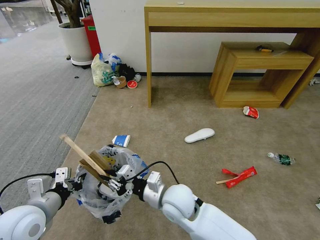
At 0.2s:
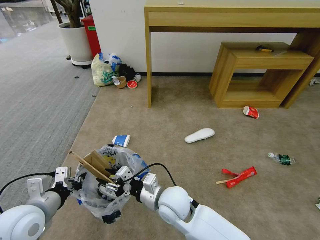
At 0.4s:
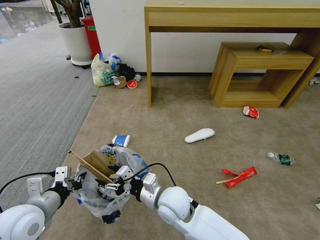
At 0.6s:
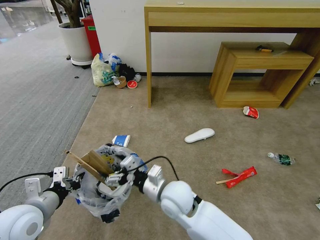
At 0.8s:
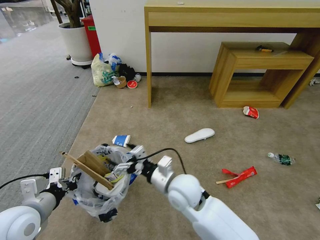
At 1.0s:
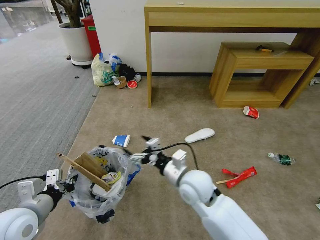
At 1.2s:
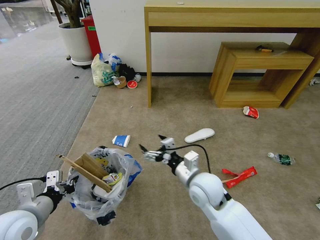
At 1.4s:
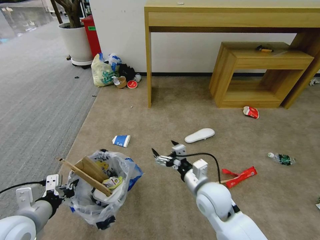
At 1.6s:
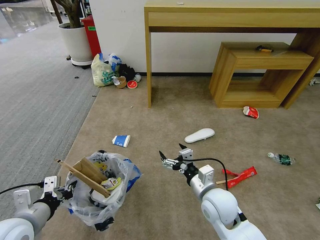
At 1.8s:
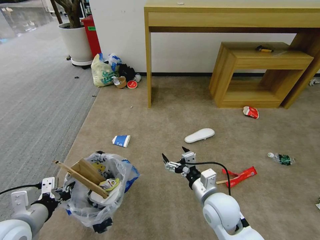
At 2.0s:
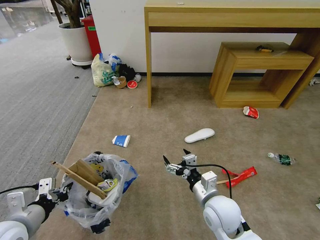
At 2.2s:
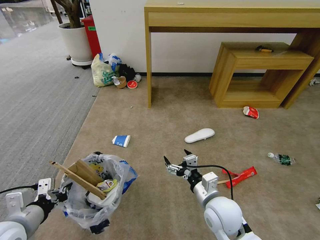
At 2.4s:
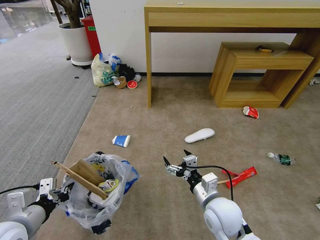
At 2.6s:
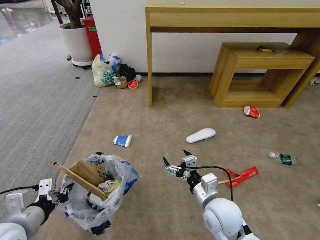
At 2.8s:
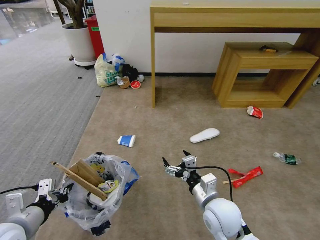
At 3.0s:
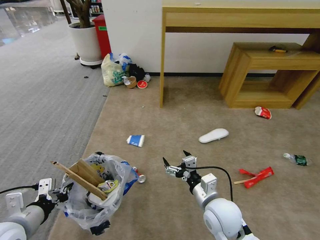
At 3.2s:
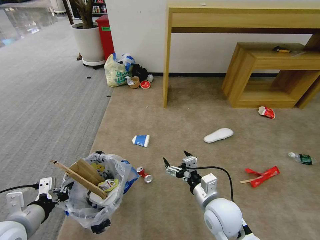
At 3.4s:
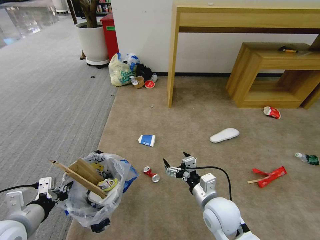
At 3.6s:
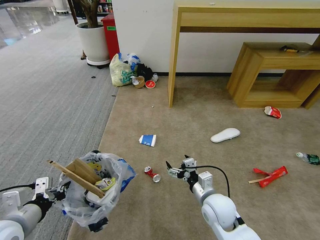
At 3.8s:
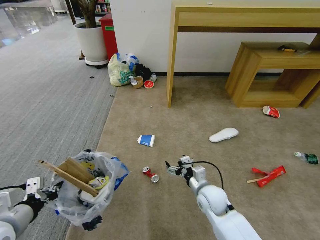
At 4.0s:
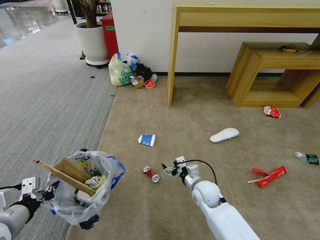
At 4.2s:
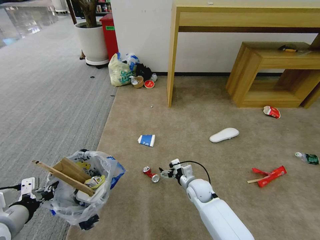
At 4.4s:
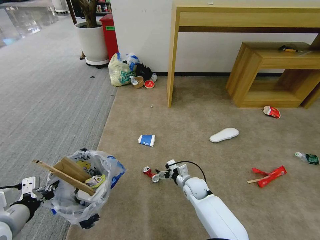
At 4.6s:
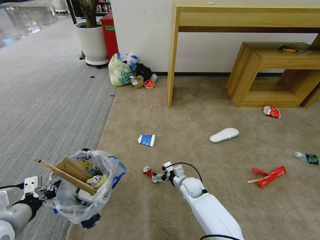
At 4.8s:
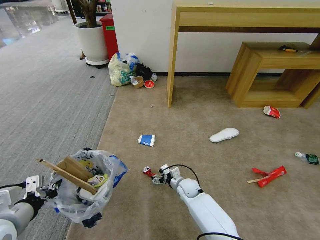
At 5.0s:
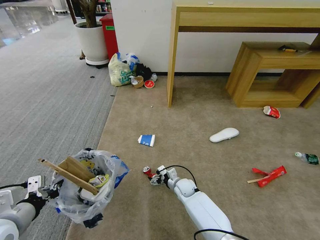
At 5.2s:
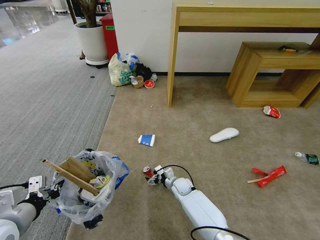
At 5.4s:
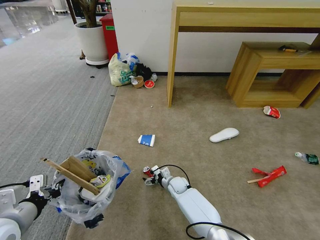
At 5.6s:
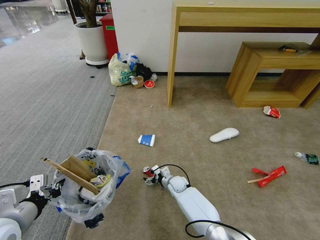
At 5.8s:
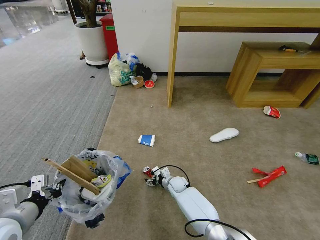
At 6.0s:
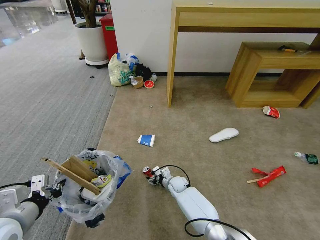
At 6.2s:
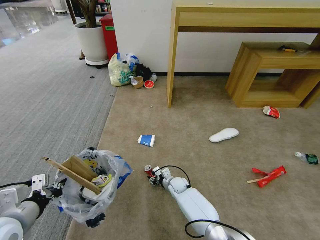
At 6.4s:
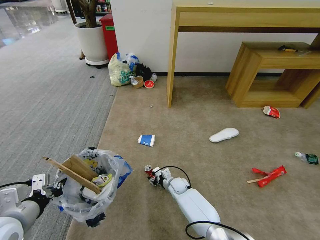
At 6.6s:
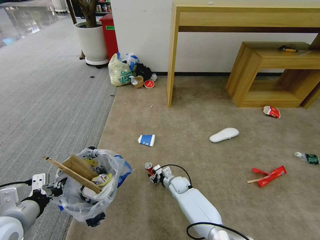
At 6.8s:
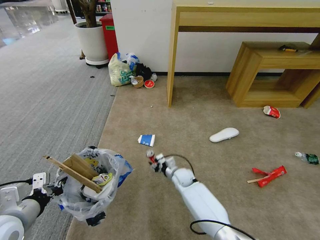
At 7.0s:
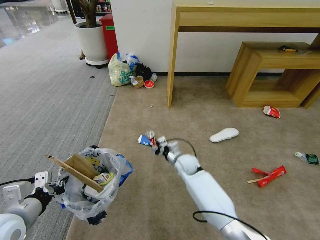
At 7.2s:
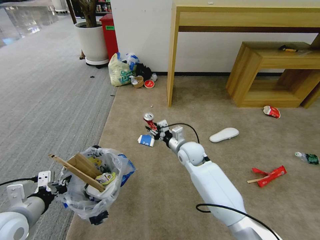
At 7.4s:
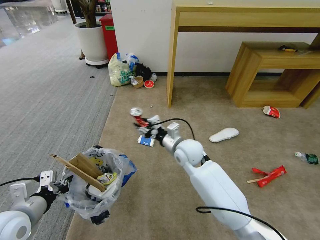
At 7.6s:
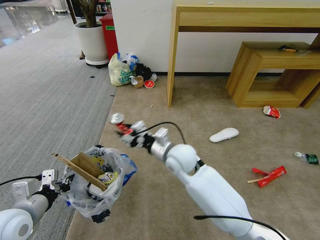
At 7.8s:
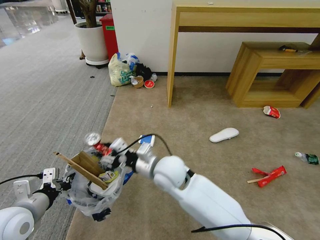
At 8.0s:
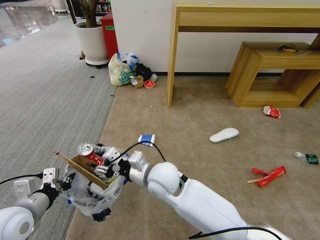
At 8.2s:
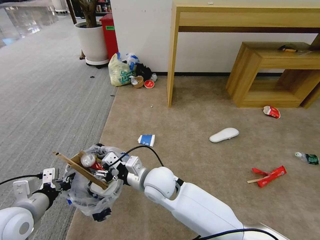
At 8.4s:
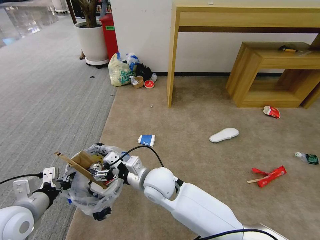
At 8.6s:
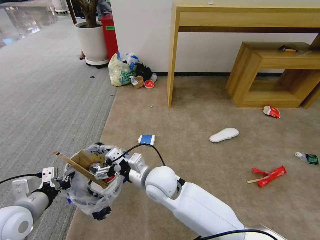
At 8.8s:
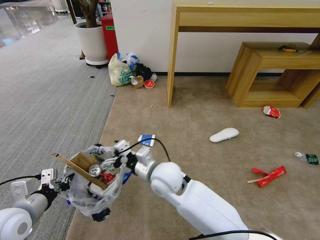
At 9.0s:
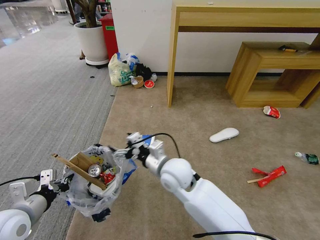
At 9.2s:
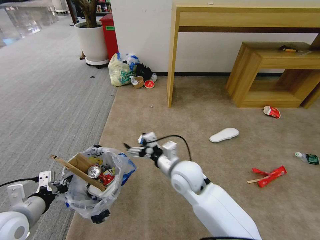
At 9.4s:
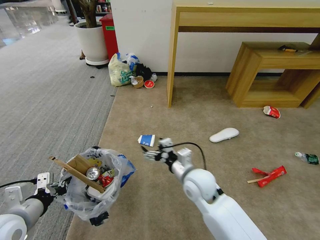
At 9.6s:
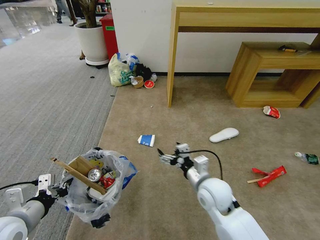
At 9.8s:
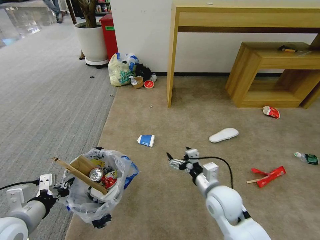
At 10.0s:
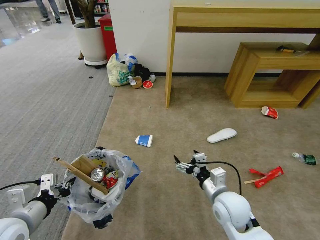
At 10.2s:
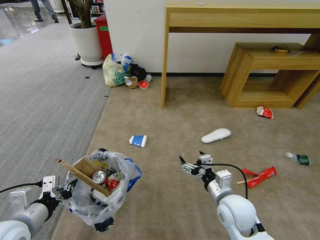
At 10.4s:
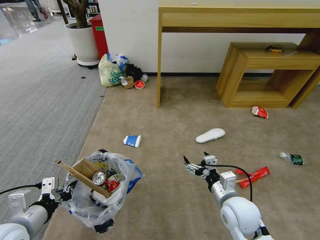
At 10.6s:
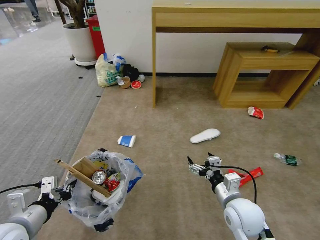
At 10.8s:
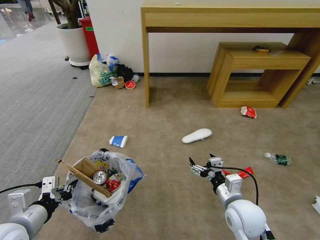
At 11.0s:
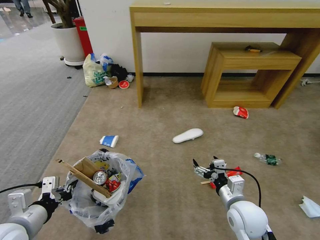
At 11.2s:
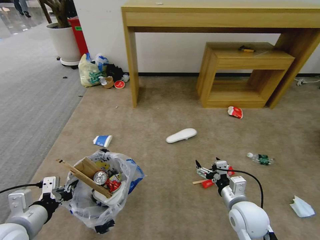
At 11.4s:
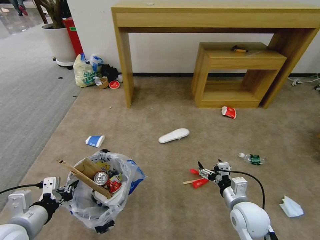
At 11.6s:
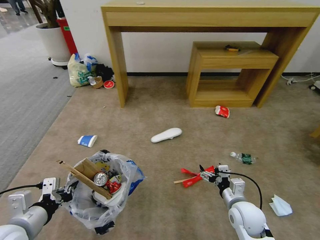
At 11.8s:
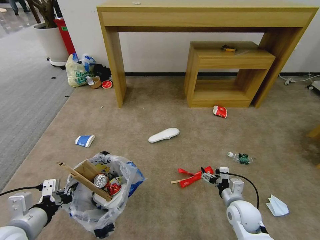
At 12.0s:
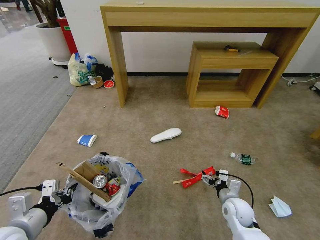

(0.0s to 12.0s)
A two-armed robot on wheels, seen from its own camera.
Task of the whole recording: Pick up the trash bin and place the garbage on the floor into it.
0.0s - 1.6s: The right gripper travels to the right by approximately 10 cm, and opens.
3.0s - 4.4s: The right gripper goes approximately 20 cm downward and forward.
4.4s - 6.0s: The right gripper heads downward and to the left, covering approximately 10 cm.
6.0s - 7.6s: The right gripper is displaced upward by approximately 30 cm.
7.6s - 9.0s: The right gripper opens up.
9.0s - 10.4s: The right gripper moves to the right and backward, some 20 cm.
10.4s - 12.0s: The right gripper goes some 15 cm downward and to the right.

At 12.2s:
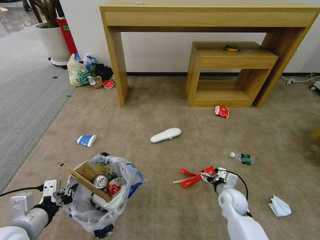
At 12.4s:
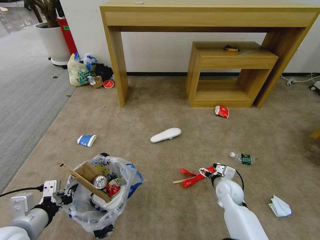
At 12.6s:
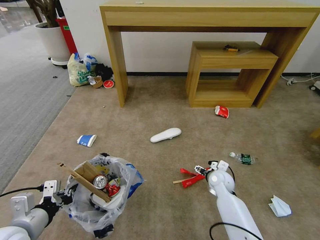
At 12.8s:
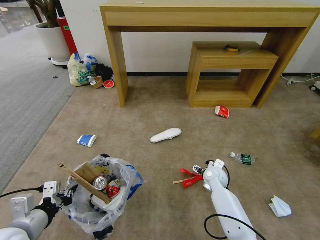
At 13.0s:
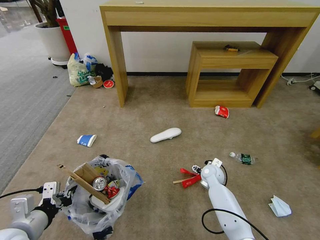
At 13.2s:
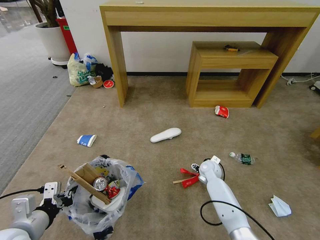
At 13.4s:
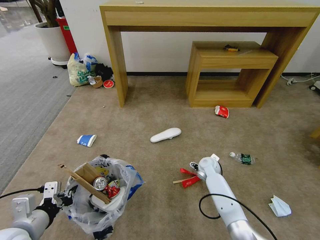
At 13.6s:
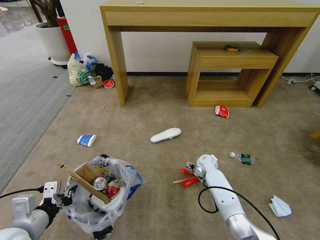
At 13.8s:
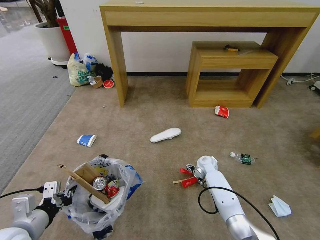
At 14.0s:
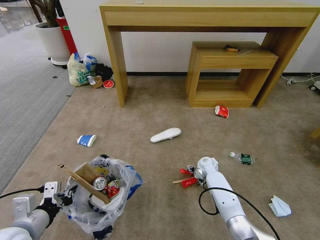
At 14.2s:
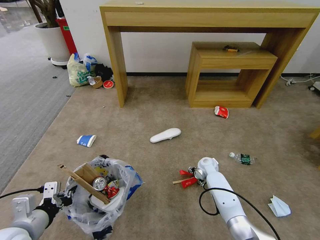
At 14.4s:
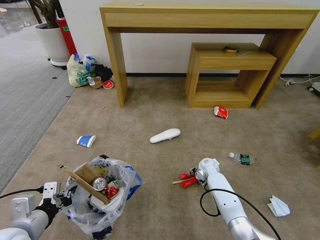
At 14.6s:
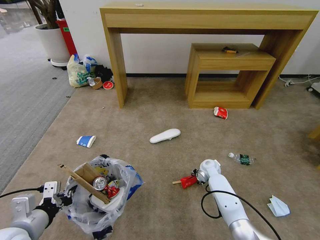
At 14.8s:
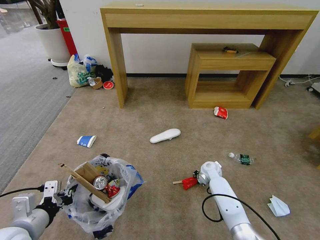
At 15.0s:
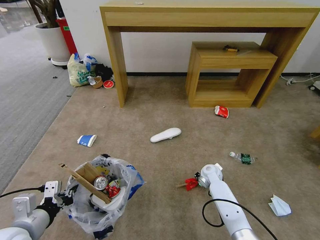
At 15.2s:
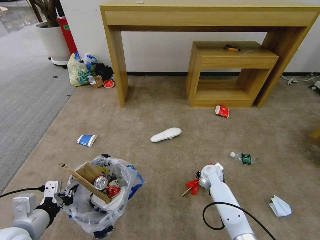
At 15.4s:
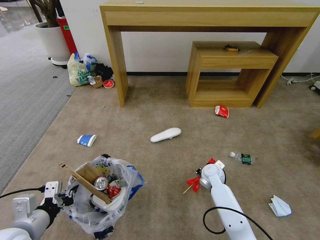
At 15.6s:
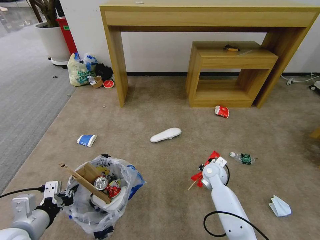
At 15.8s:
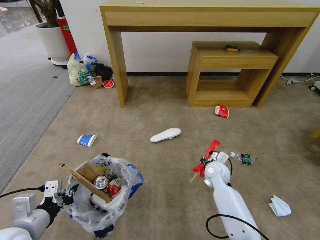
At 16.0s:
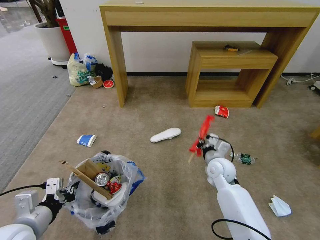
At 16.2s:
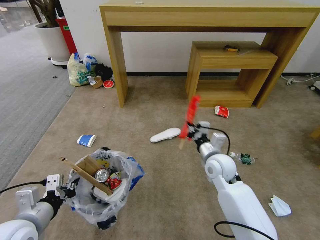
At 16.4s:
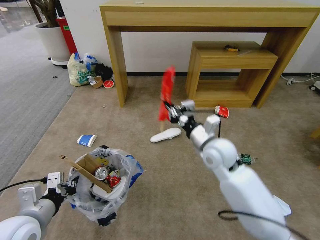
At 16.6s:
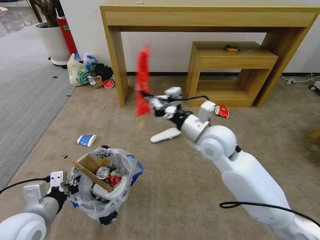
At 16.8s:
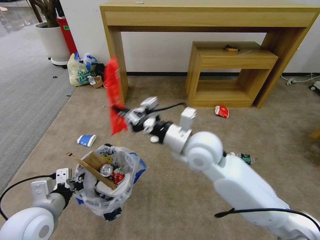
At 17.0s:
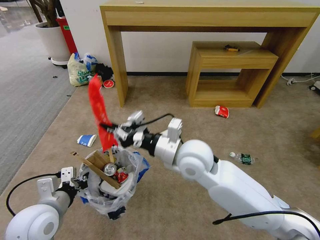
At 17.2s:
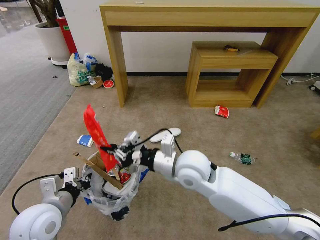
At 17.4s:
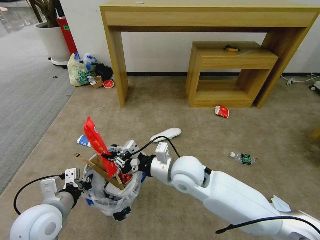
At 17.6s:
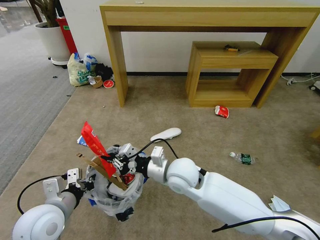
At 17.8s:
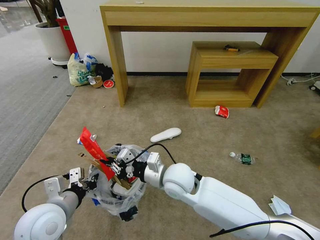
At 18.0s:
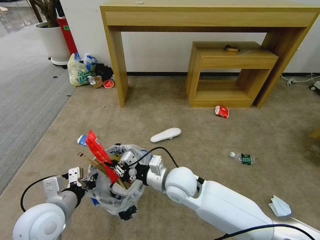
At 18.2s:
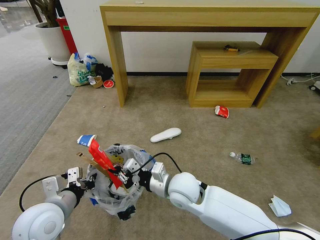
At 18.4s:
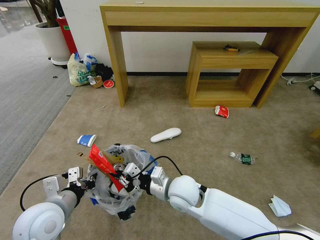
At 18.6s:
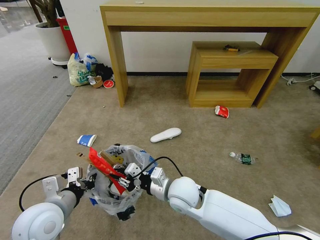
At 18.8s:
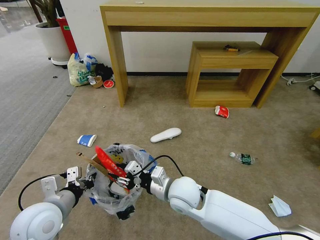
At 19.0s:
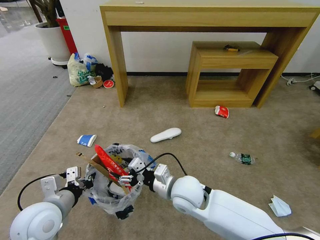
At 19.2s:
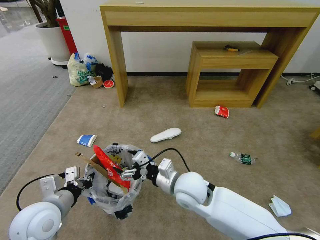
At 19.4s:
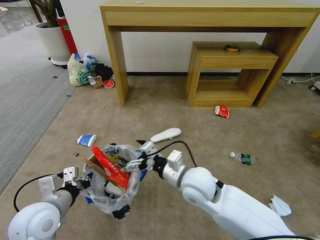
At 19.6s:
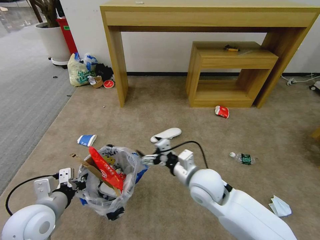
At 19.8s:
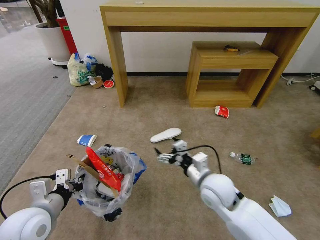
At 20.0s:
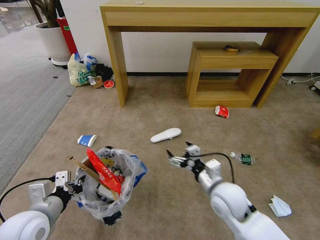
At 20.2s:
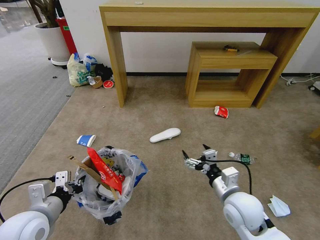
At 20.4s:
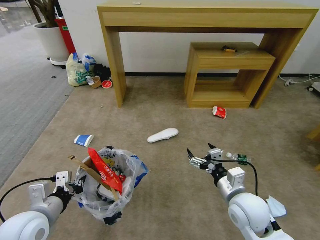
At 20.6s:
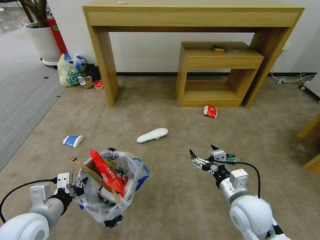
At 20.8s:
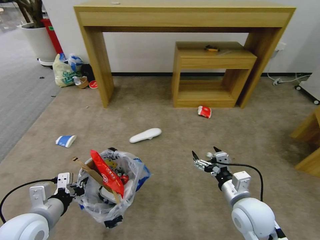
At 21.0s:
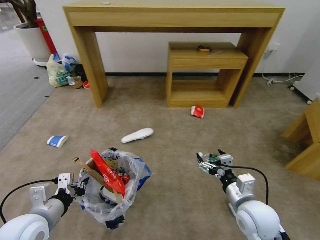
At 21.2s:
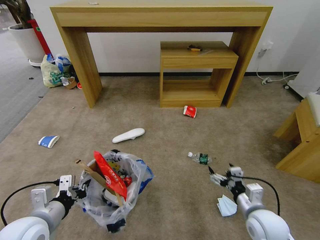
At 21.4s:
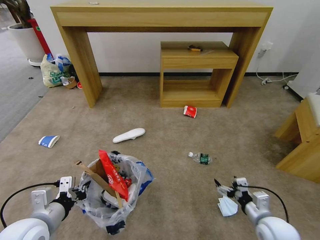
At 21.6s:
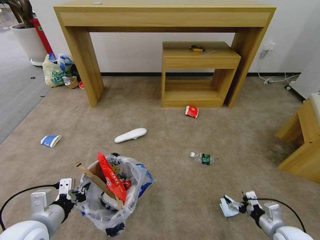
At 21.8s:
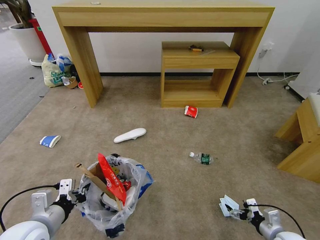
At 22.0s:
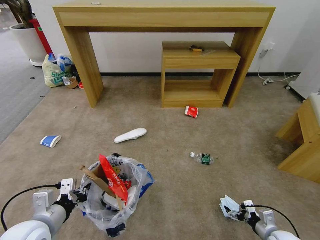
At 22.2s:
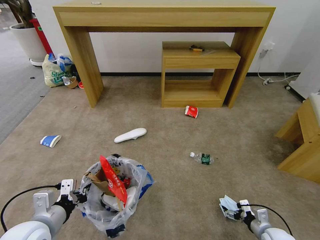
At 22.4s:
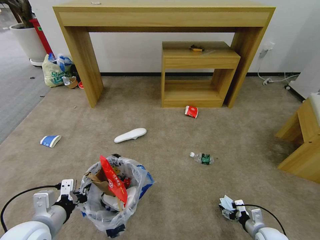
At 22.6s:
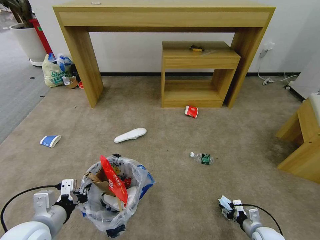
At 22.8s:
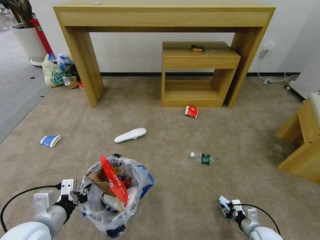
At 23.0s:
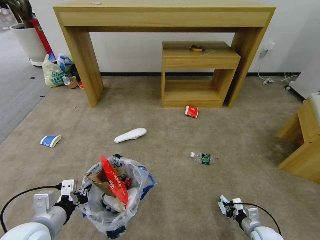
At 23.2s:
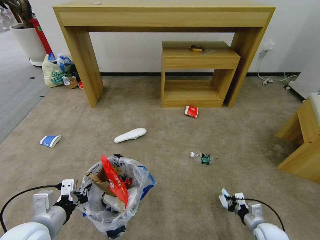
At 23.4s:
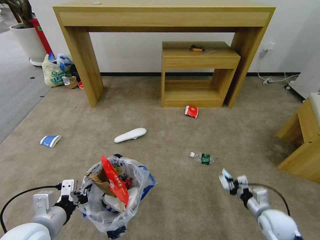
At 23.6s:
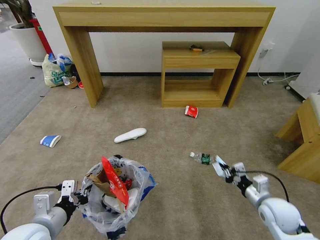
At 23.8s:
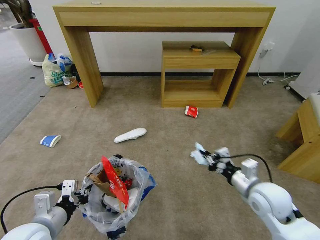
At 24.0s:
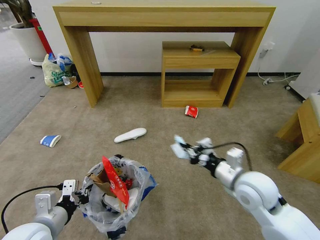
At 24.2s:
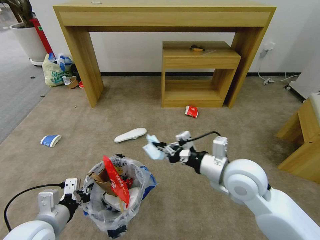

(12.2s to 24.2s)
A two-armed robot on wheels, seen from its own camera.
Task of the whole recording: Pick up the trash bin and place the garbage on the floor into it.
12.2s - 13.8s: The right gripper is displaced forward by roughly 15 cm.
13.8s - 15.2s: The right gripper closes.
15.2s - 16.6s: The right gripper goes approximately 30 cm upward.
16.6s - 18.2s: The right gripper heads downward, to the left and backward, covering approximately 20 cm.
18.2s - 19.8s: The right gripper shifts about 10 cm to the right, and opens its fingers.
19.8s - 21.2s: The right gripper heads to the right, backward and downward, covering roughly 15 cm.
21.2s - 22.6s: The right gripper travels downward and to the right by some 20 cm, and closes up.
22.6s - 24.2s: The right gripper is displaced upward and to the left by approximately 40 cm, and closes its fingers.
